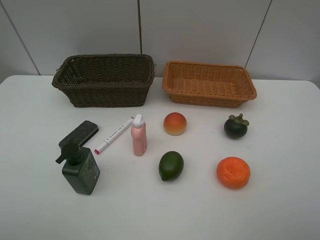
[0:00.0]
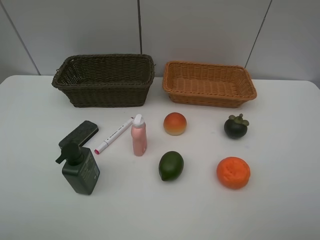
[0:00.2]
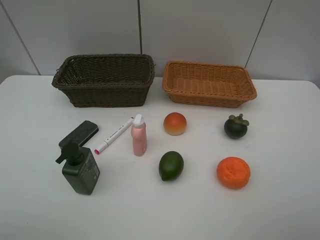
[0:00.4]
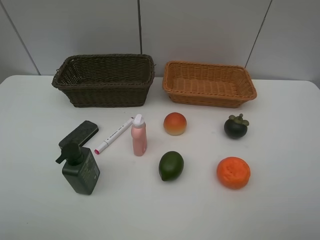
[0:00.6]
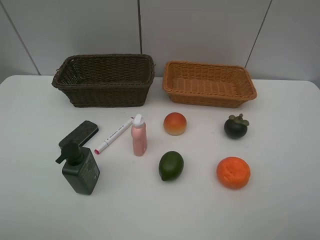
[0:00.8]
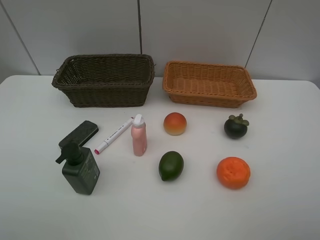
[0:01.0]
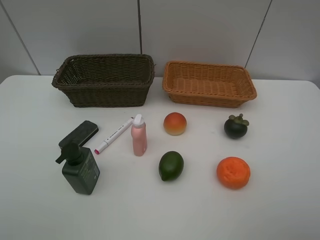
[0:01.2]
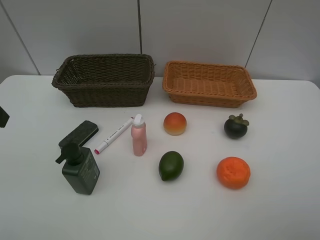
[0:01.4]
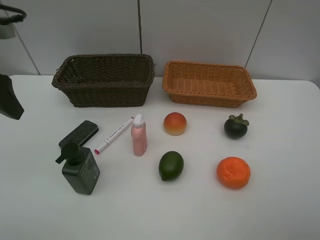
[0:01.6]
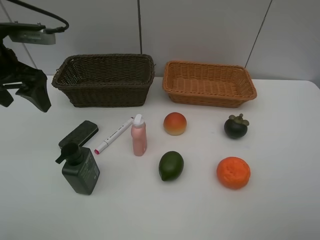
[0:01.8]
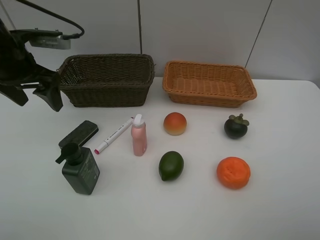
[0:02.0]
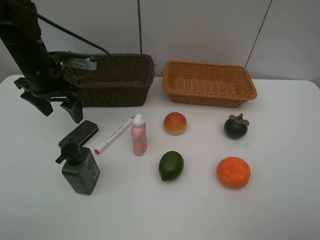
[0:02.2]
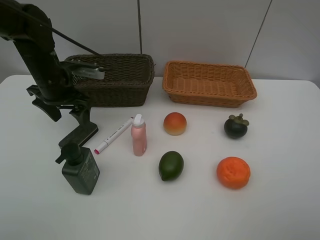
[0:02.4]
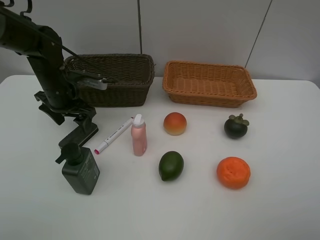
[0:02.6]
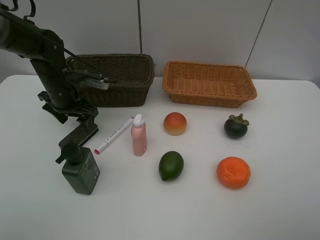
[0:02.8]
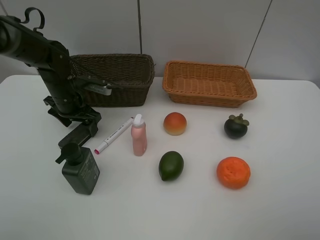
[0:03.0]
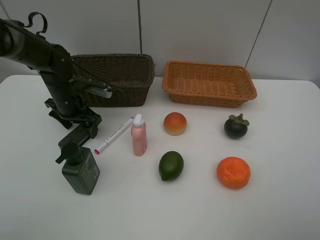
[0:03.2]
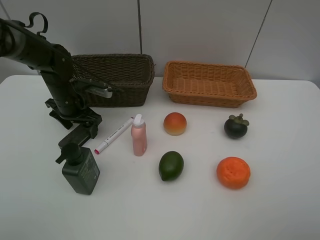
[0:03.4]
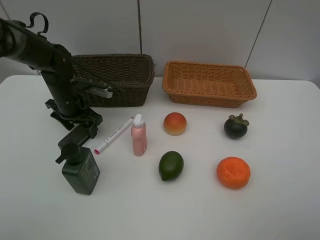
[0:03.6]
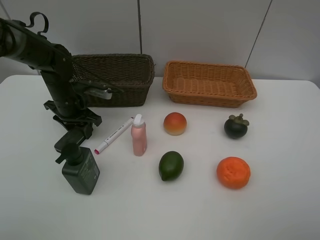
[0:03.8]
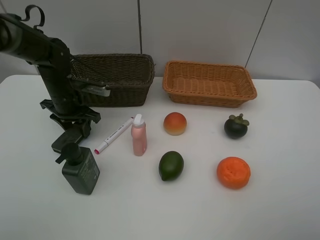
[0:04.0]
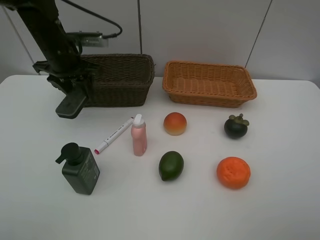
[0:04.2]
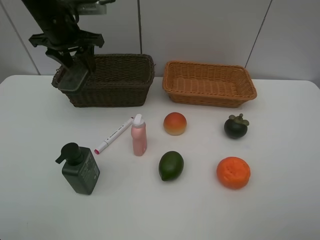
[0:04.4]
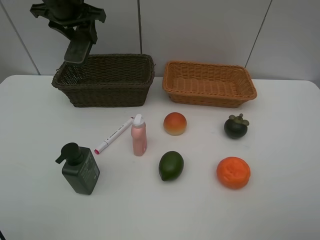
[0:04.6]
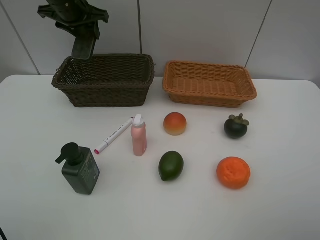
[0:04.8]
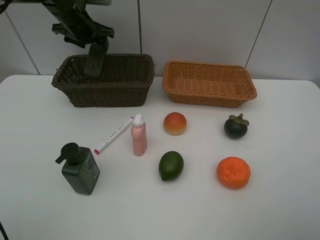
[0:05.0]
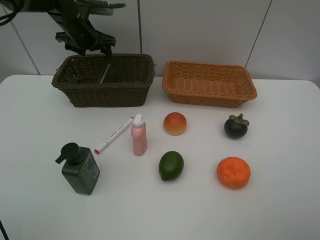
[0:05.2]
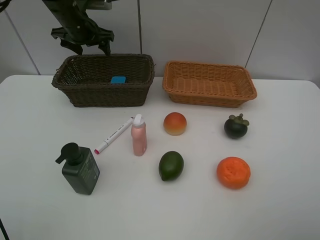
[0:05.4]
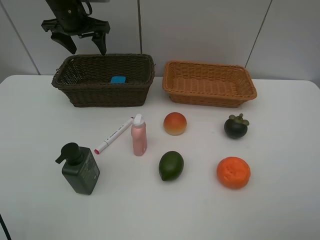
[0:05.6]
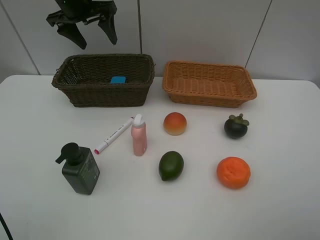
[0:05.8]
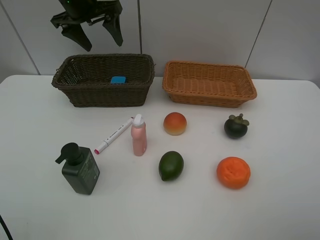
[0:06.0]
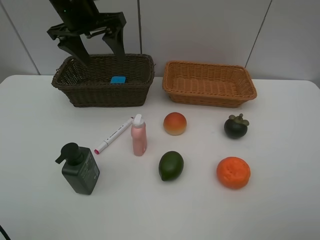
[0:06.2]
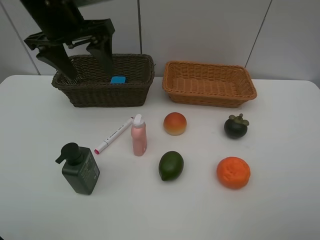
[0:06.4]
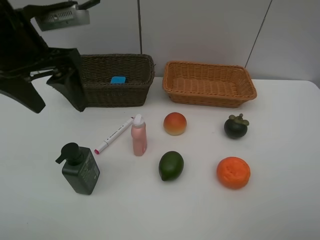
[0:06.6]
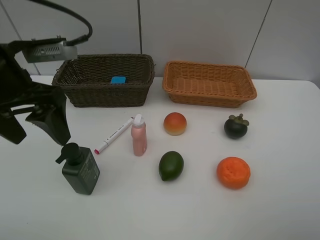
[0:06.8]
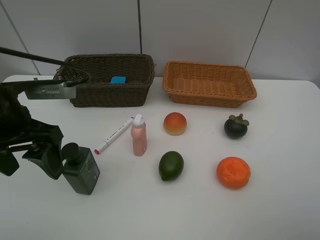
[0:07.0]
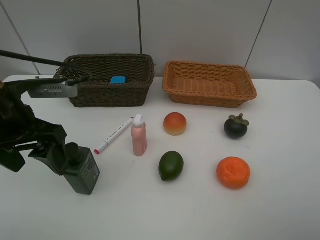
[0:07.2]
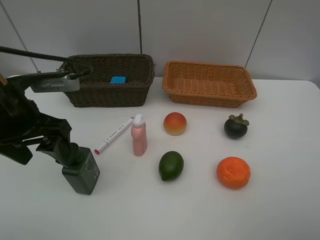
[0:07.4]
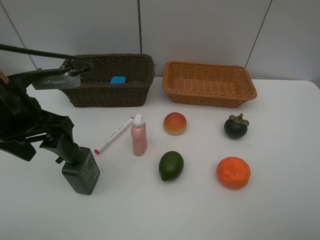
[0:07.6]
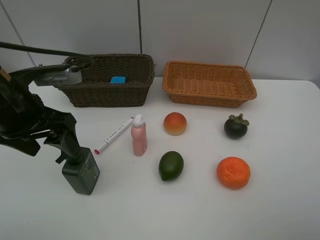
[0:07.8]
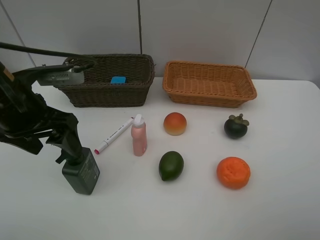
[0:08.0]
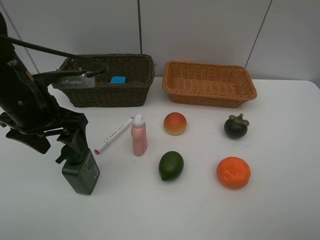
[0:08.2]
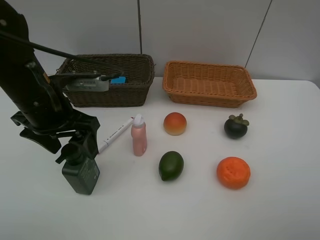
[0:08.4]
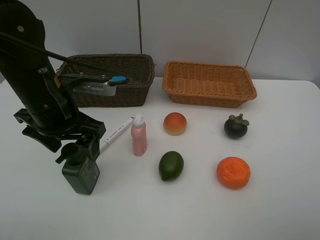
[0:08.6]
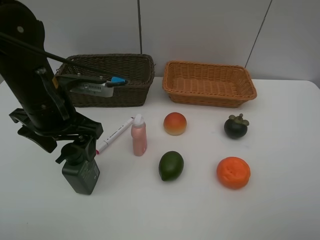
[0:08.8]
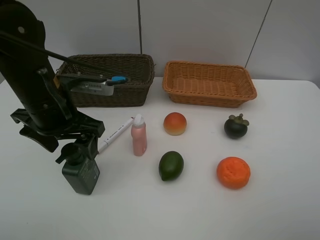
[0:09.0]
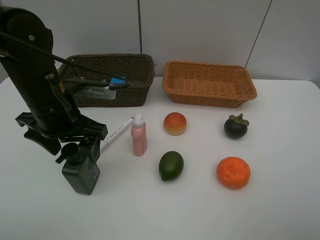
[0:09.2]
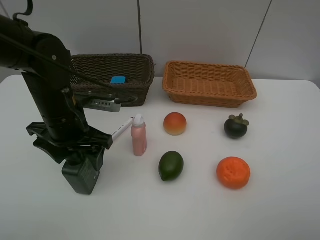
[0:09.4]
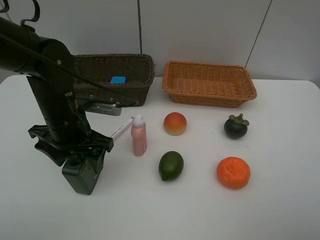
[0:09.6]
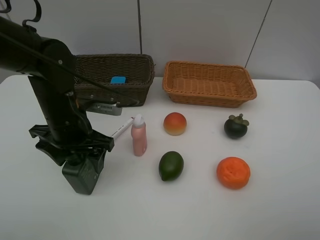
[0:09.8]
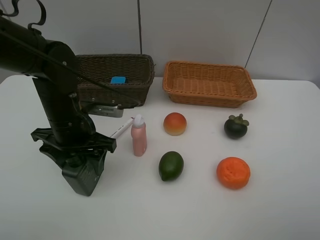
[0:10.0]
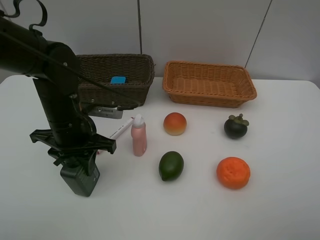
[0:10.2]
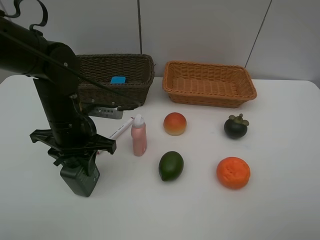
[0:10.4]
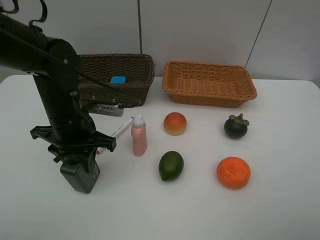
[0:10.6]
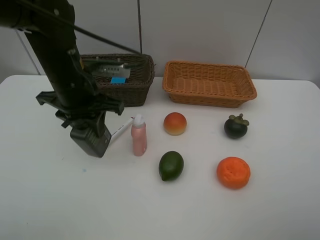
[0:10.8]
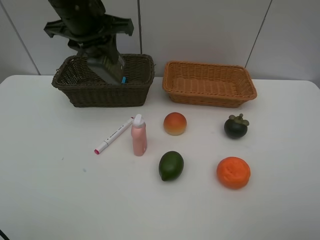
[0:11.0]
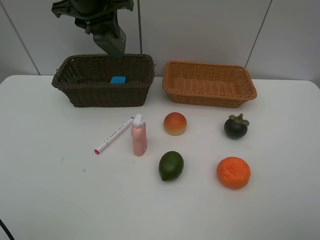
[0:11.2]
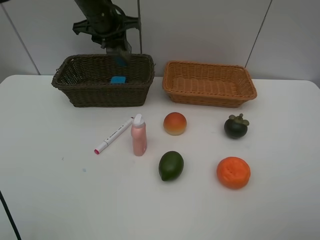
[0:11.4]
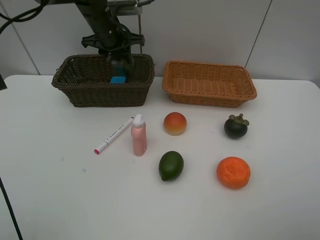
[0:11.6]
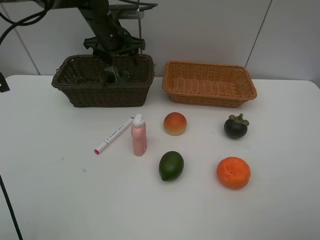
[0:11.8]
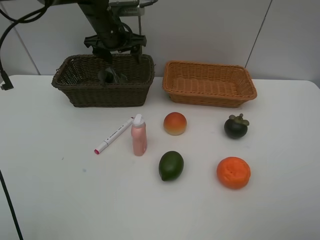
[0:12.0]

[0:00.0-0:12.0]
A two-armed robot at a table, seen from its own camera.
Task of the whole recording: Place multiple objects separately in different baskets.
Step, 0.0 to 4.0 s: Pick up blackboard eraser with left gripper.
Step, 4.2 to 5.2 s: Place the blackboard eraser in the dark basket with left gripper.
Step, 5.4 to 10.6 s: Pick up the hard facial cleanser with left gripper.
Step, 10.8 to 12.0 s: Place the hard facial cleanser in the dark basket with left gripper.
0.0 to 1.6 s: The left gripper heads forward, covering approximately 25 cm.
1.6 to 3.0 s: The left gripper heads downward and forward, covering about 25 cm.
3.0 to 4.4 s: The left gripper moves upward, approximately 20 cm, and closes.
4.4 to 6.0 s: The left gripper goes forward and returns, about 10 cm each way, and opens up.
6.0 to 7.6 s: The left gripper shifts about 25 cm backward.
7.6 to 9.0 s: The left gripper ends up roughly 5 cm from where it was.
9.0 to 10.4 s: The left gripper shifts about 5 cm downward, and closes.
10.4 to 12.0 s: The left gripper is displaced forward by about 25 cm, and opens its fingers.

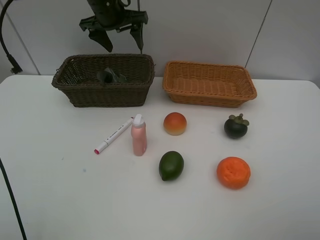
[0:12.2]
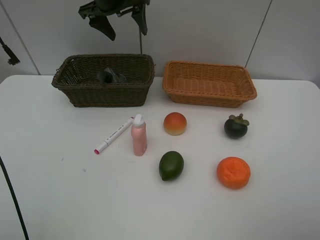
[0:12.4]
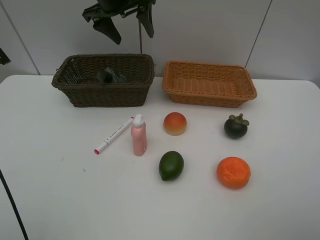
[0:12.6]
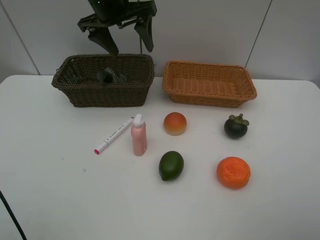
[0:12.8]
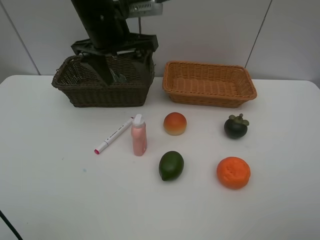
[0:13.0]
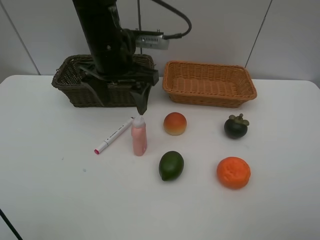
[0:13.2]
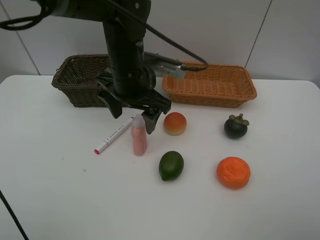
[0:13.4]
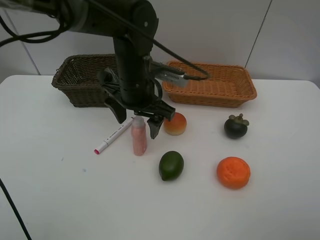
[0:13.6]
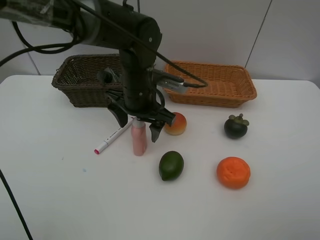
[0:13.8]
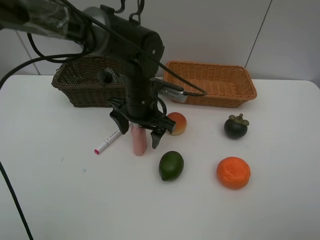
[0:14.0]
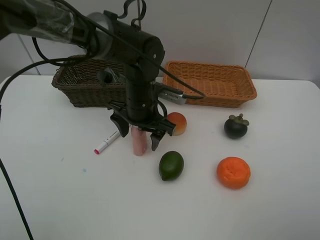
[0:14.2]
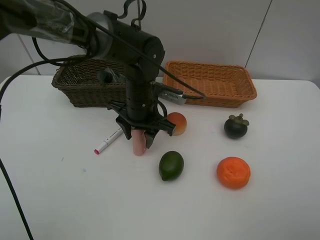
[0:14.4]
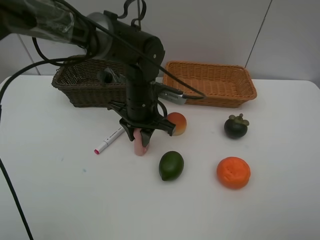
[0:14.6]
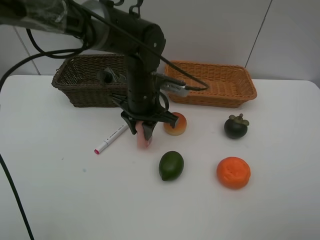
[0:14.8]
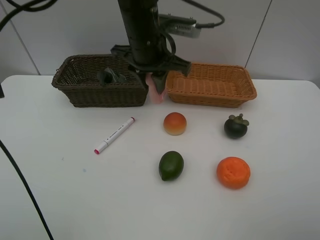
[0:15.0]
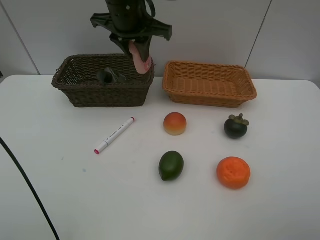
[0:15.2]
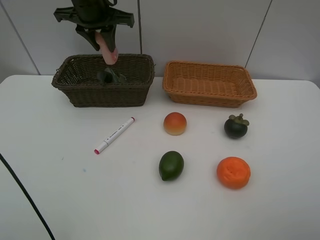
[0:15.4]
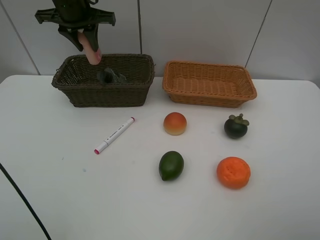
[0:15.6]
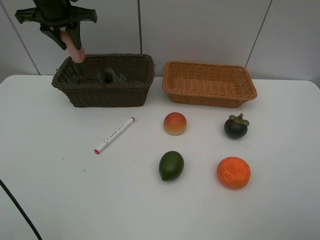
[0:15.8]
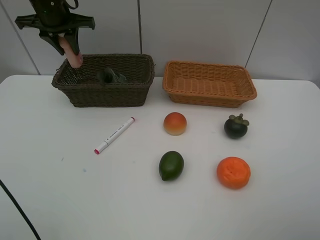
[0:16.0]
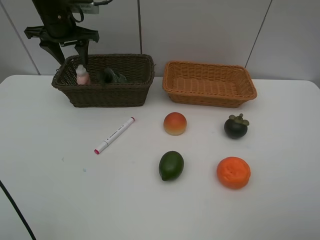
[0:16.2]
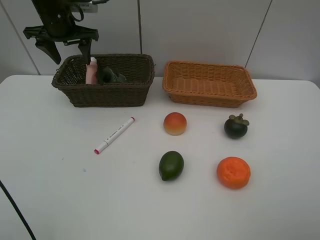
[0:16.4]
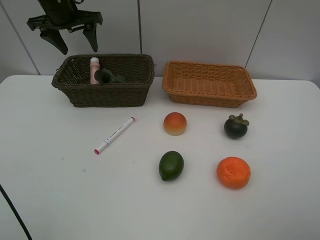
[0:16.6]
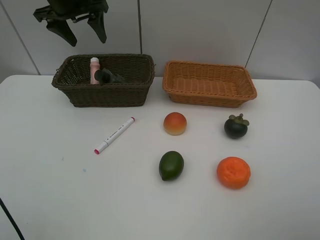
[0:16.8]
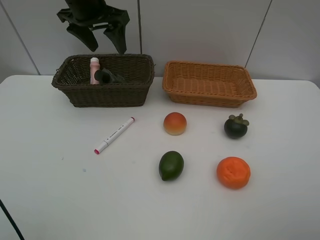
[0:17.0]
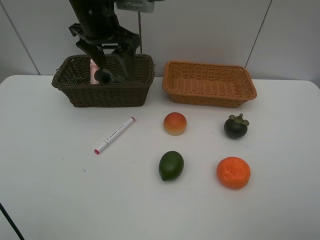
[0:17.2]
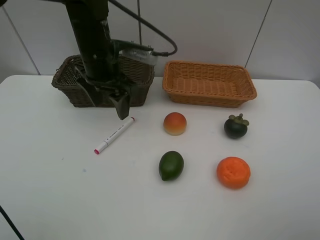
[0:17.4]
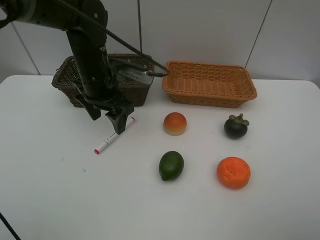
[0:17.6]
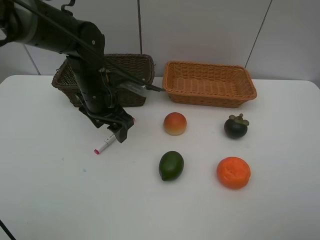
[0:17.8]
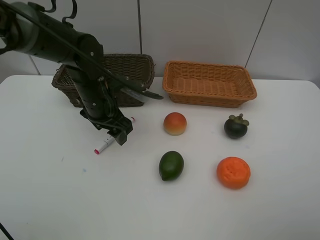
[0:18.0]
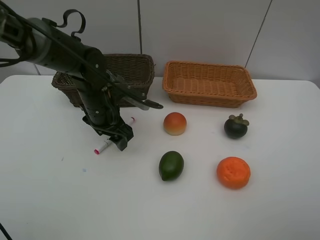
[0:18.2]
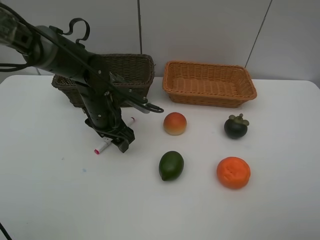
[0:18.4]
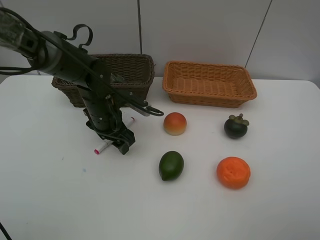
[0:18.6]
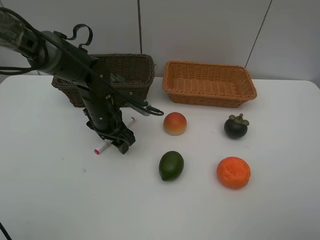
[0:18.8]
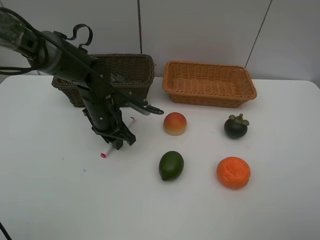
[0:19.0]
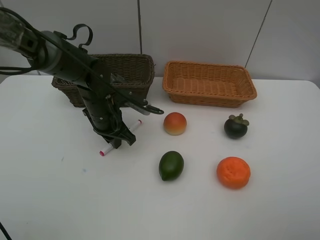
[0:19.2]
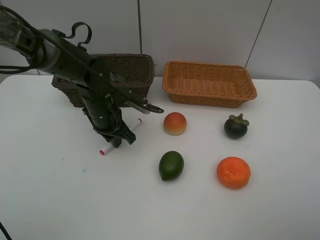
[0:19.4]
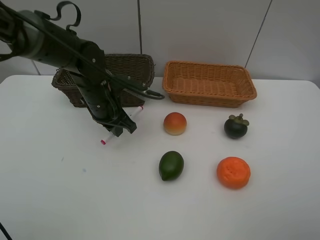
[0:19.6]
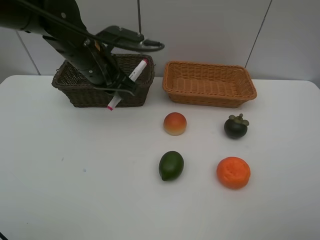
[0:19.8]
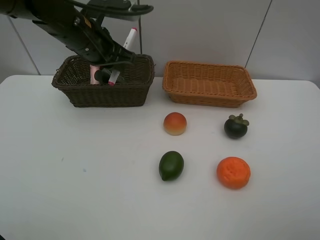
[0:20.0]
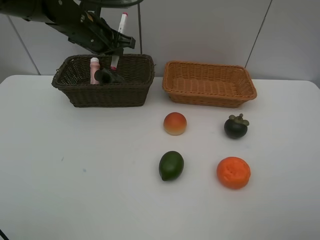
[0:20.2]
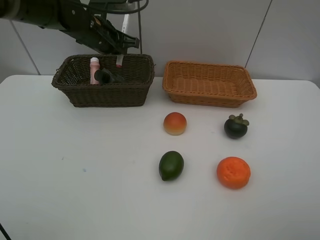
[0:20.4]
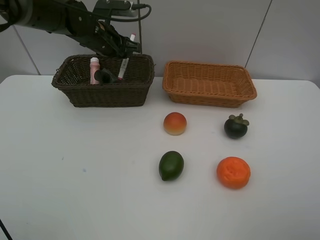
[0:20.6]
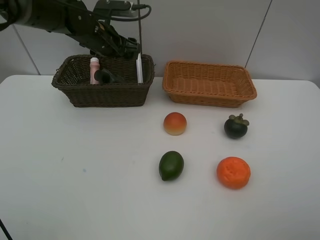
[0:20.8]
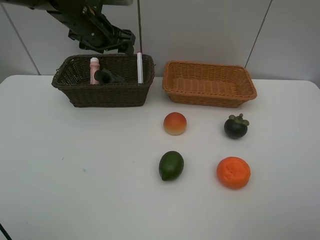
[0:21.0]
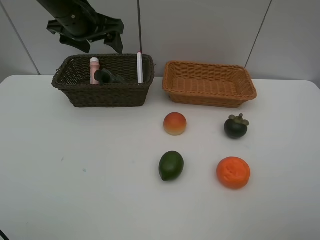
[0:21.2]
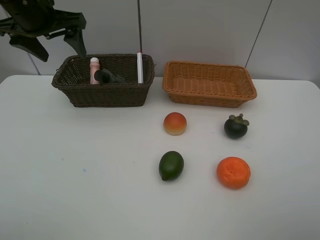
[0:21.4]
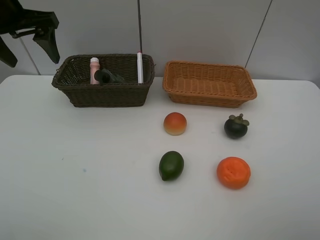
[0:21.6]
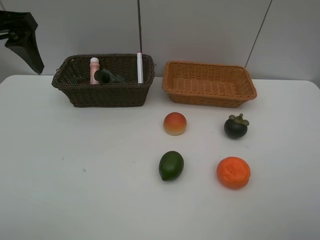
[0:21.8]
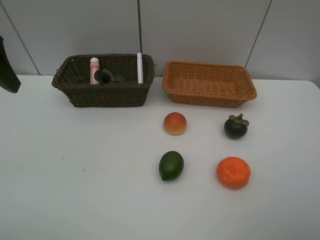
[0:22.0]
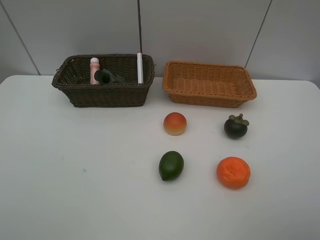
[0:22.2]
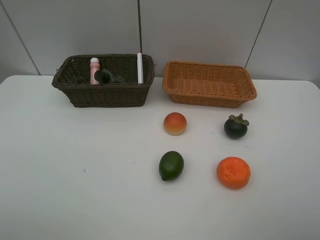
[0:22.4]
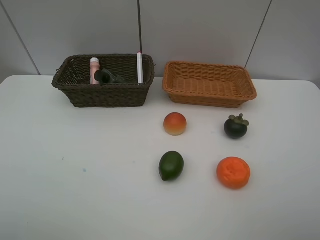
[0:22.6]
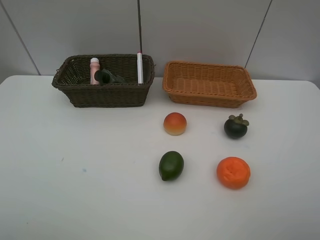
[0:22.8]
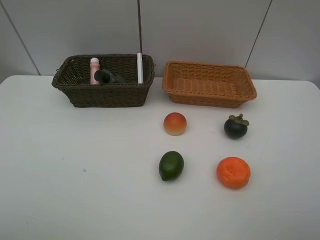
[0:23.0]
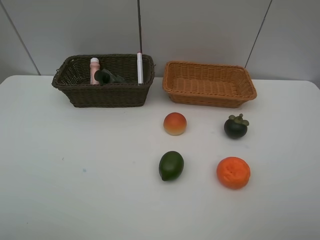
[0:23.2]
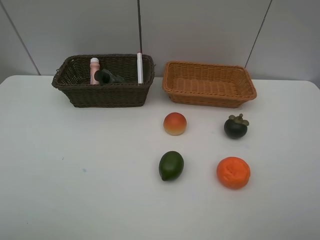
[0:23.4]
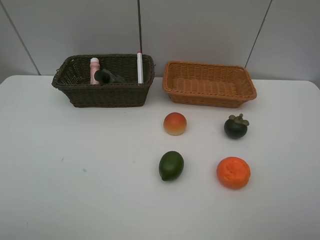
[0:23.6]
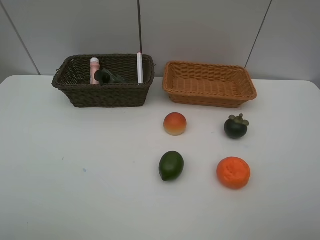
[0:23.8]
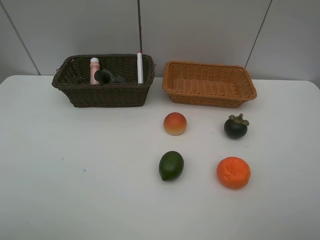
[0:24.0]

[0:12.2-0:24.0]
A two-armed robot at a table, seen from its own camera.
Task of the whole recording: Place multiple objects separately in different baskets.
Step, 12.2 to 14.8 s: Pick up the laundry detergent with left gripper.
Step, 15.0 to 16.4 s: Place the laundry detergent in the dark basket with left gripper.
Step, 16.6 to 19.6 s: Pick up the red marker with left gripper.
Step, 19.8 to 20.8 s: Place the red marker in the dark basket with left gripper.
12.2 to 13.6 s: The left gripper heads backward, downward and to the right, covering roughly 20 cm.
13.6 to 15.2 s: The left gripper goes some 15 cm upward and forward, and closes.
15.2 to 16.6 s: The left gripper is displaced to the left and forward by some 15 cm, and opens its fingers.
16.6 to 18.2 s: The left gripper moves downward, backward and to the right, about 25 cm.
18.2 to 19.6 s: The left gripper closes.
19.6 to 21.0 s: The left gripper goes roughly 15 cm upward and forward, and opens.
21.0 to 22.6 s: The left gripper travels backward by some 40 cm.
